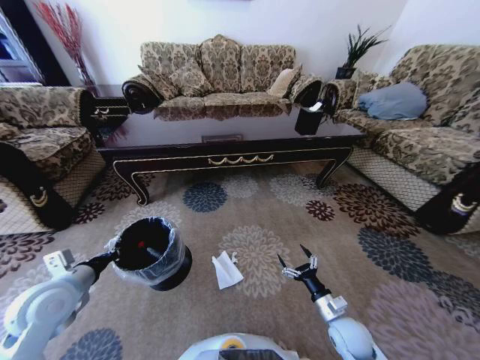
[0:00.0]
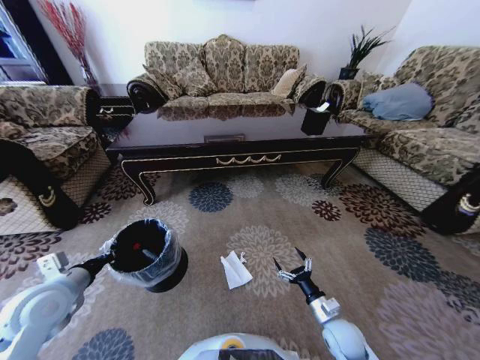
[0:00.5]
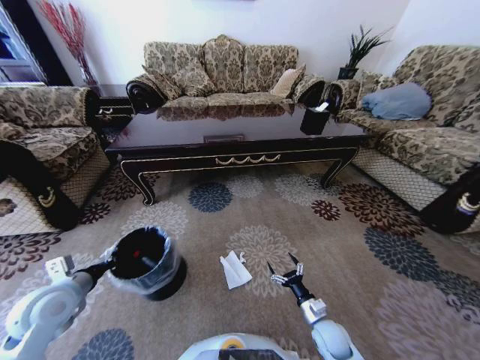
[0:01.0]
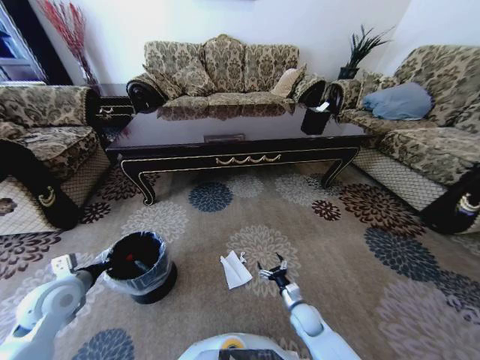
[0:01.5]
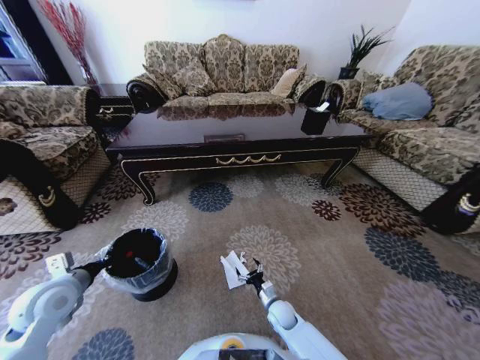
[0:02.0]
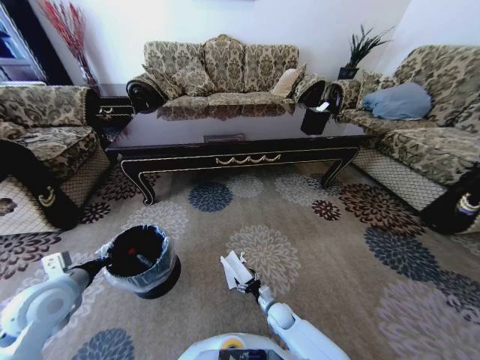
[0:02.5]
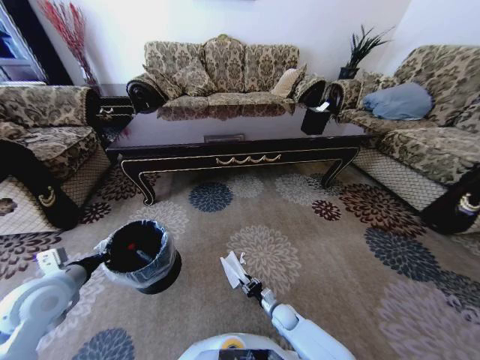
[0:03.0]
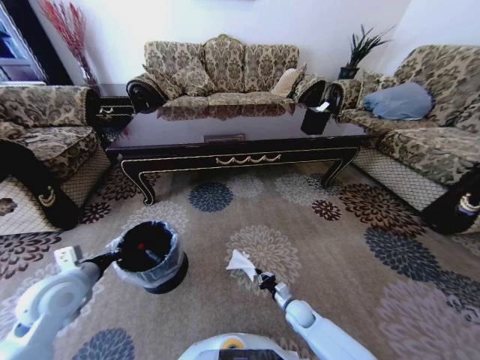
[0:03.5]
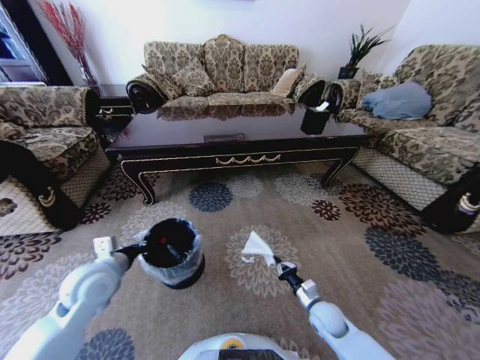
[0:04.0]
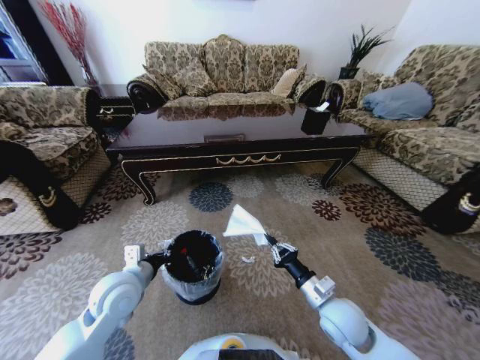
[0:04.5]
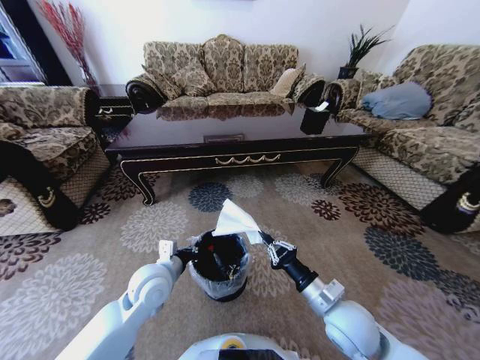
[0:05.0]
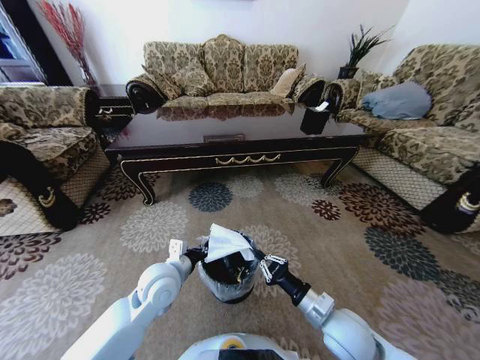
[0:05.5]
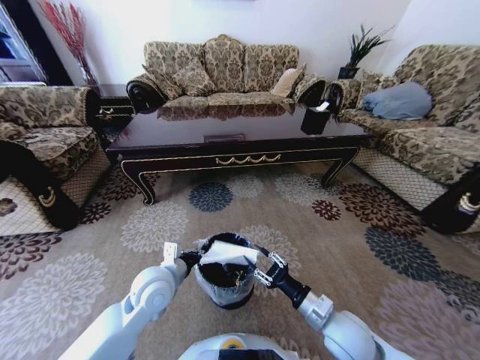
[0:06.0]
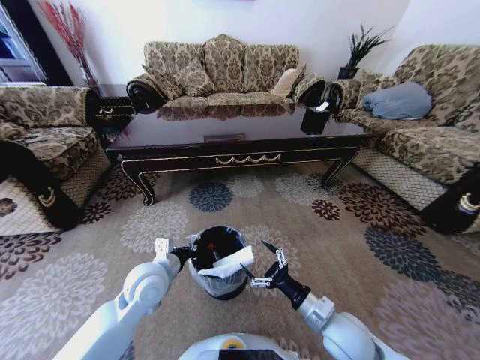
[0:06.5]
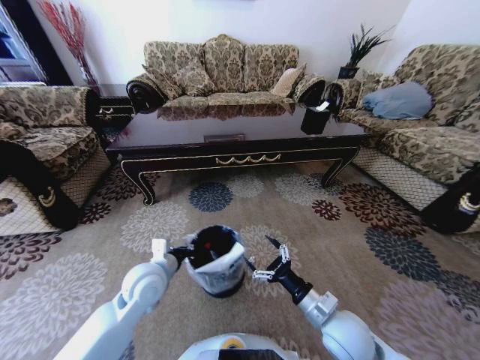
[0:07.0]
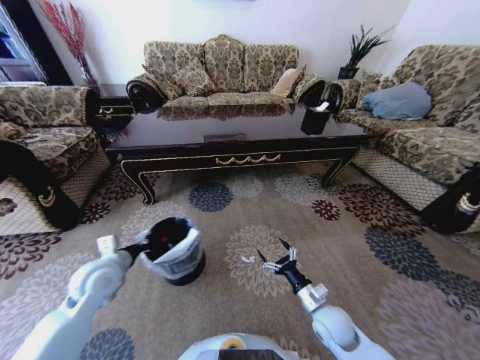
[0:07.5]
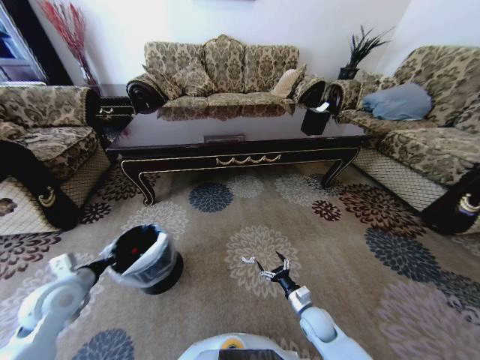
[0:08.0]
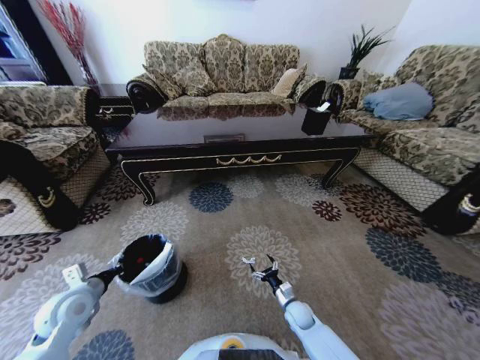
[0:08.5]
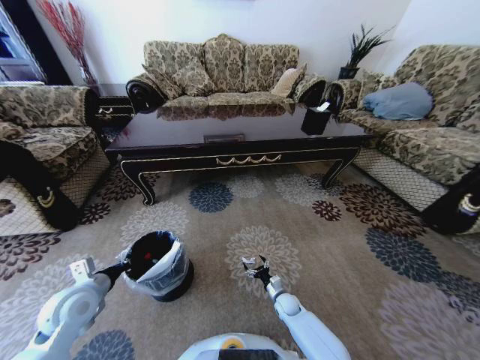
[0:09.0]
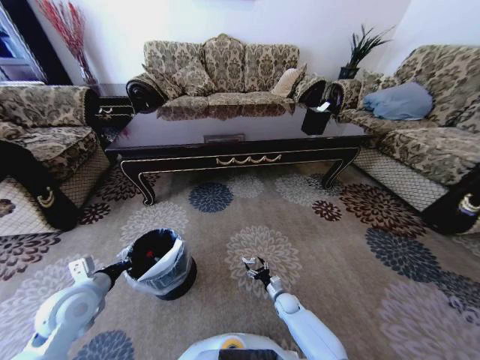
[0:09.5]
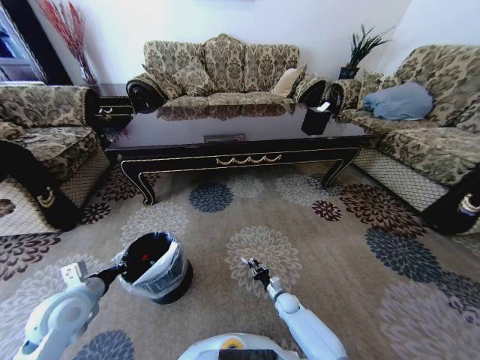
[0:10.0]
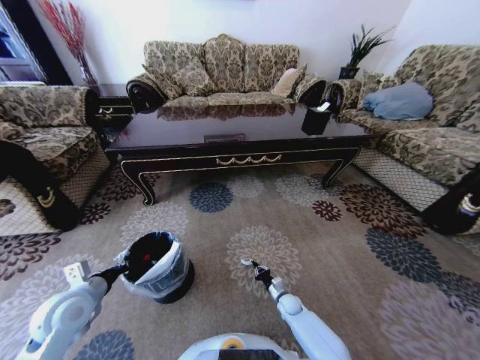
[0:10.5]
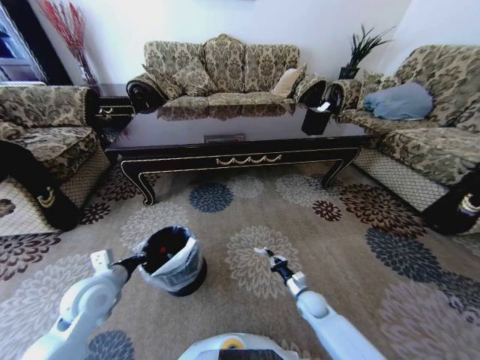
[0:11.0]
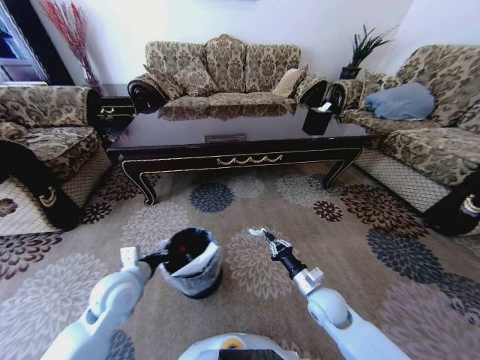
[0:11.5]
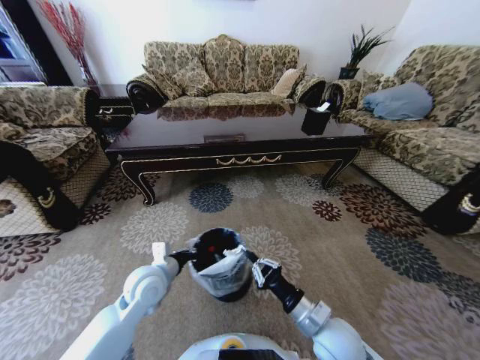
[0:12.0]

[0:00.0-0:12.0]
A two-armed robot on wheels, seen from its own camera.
Task of the whole recording: Move to the front of the table and pick up the trash from the floor, then place it into the trash bin.
0:00.0 to 0:02.0: The right gripper travels to the left, downward and forward by roughly 20 cm.
0:02.0 to 0:04.0: The right gripper moves to the right and upward, roughly 15 cm, and closes up; the left gripper is displaced to the right by some 10 cm.
0:04.0 to 0:06.0: The left gripper goes approximately 15 cm to the right; the right gripper goes approximately 15 cm upward and backward, and opens up.
0:06.0 to 0:08.0: The left gripper travels to the left by approximately 20 cm. Meanwhile the right gripper moves downward, about 20 cm, and opens.
0:08.0 to 0:10.0: The right gripper heads downward and forward, covering approximately 15 cm, and closes its fingers.
0:10.0 to 0:12.0: The right gripper travels upward and backward by roughly 35 cm, and closes up. The left gripper goes roughly 15 cm to the right.

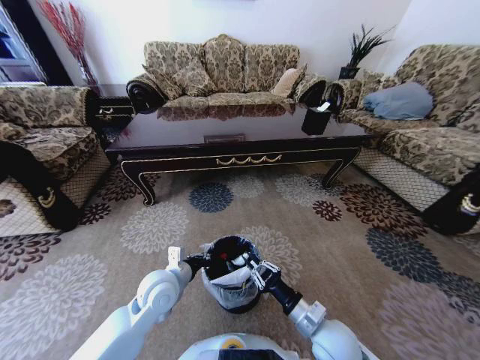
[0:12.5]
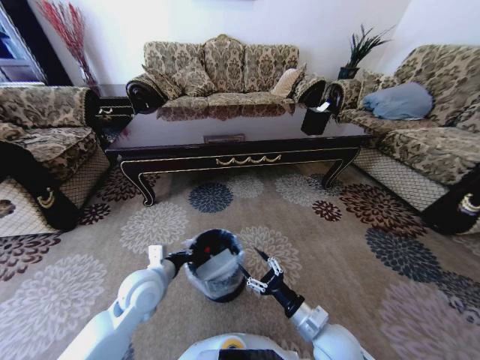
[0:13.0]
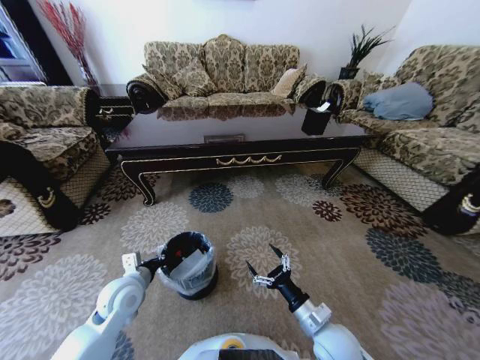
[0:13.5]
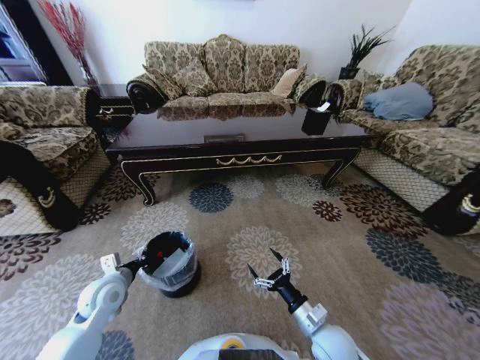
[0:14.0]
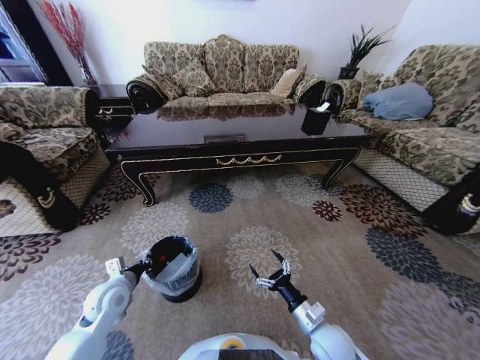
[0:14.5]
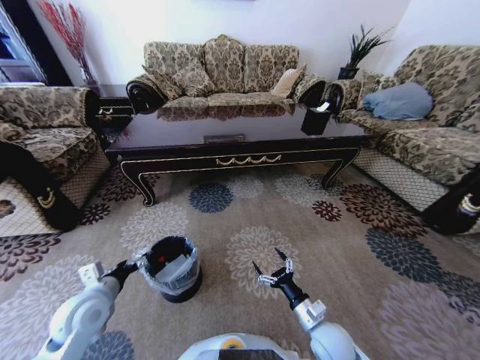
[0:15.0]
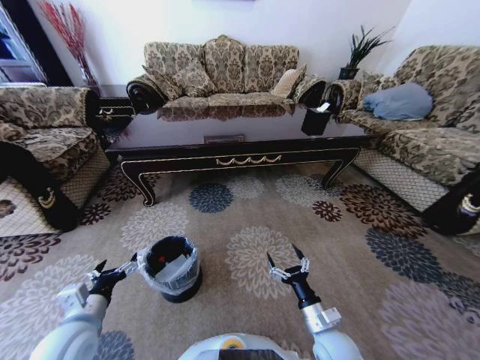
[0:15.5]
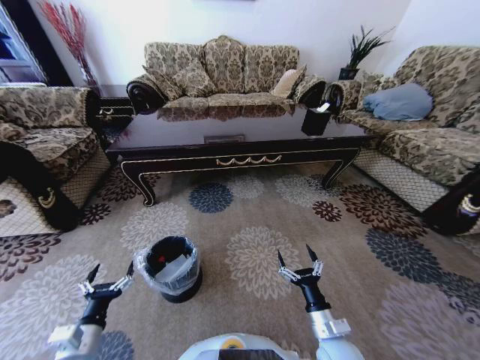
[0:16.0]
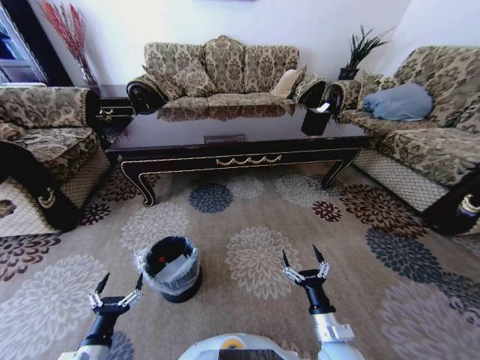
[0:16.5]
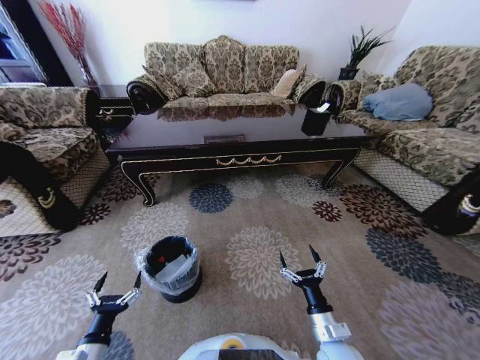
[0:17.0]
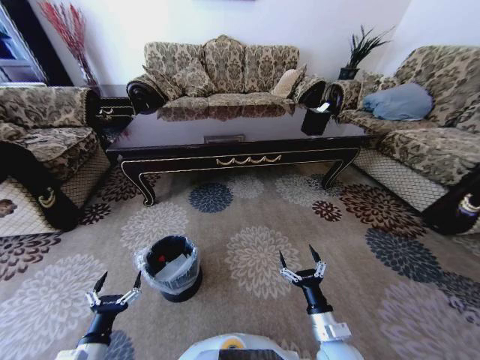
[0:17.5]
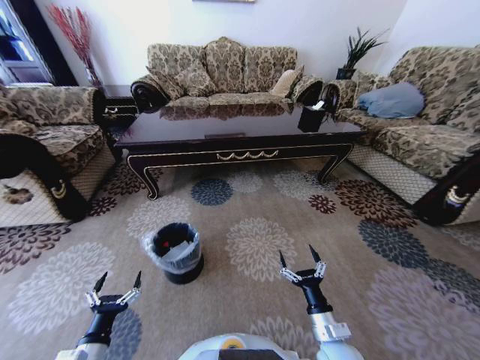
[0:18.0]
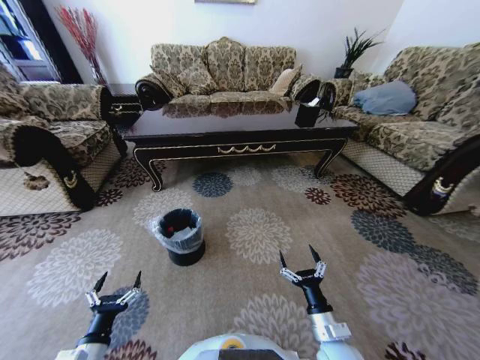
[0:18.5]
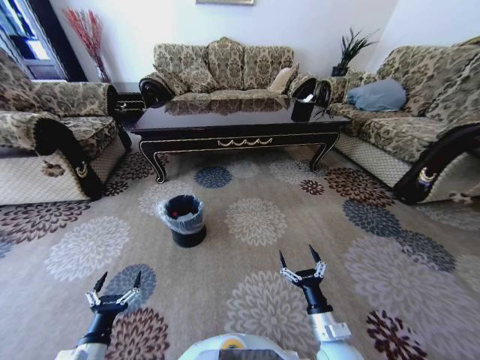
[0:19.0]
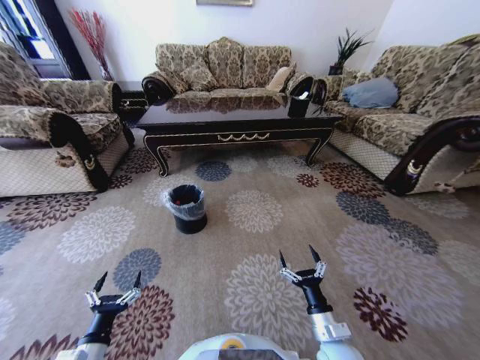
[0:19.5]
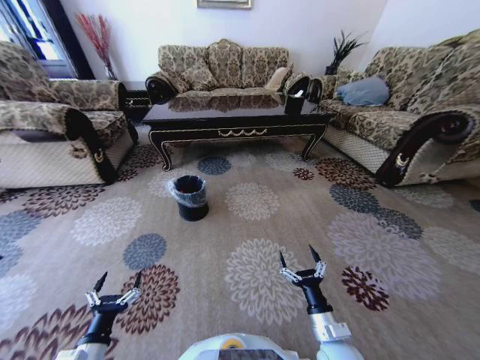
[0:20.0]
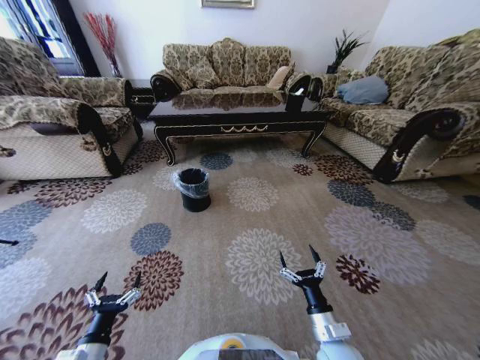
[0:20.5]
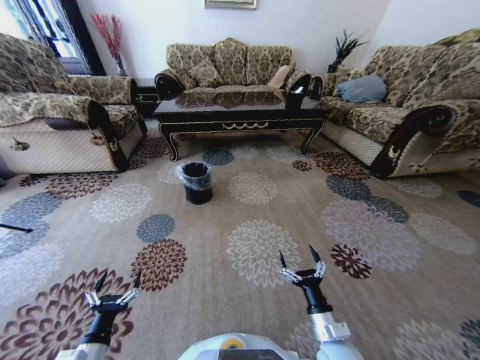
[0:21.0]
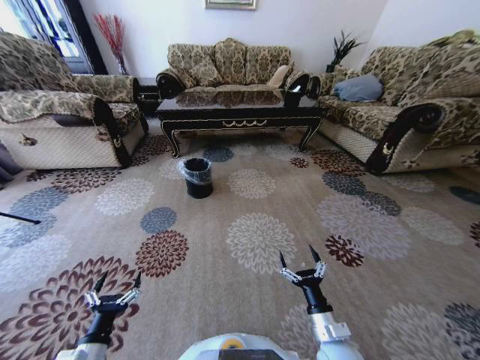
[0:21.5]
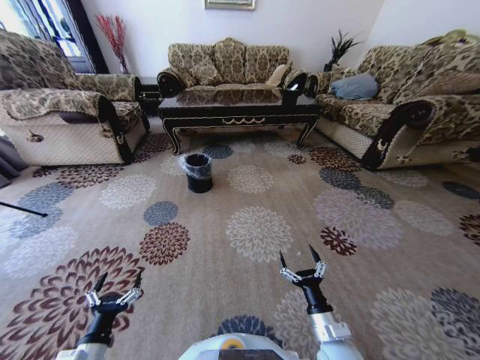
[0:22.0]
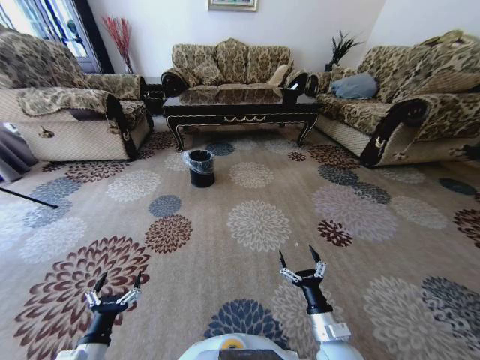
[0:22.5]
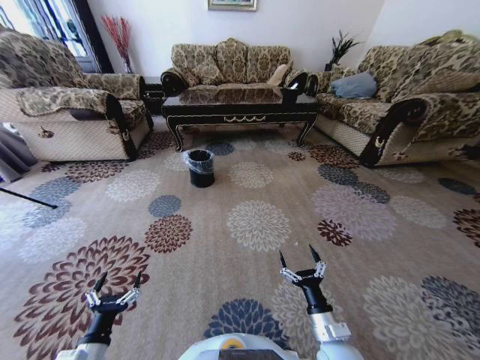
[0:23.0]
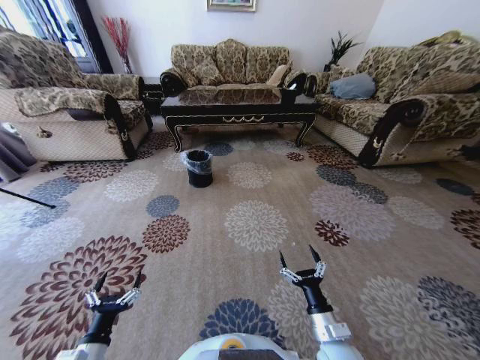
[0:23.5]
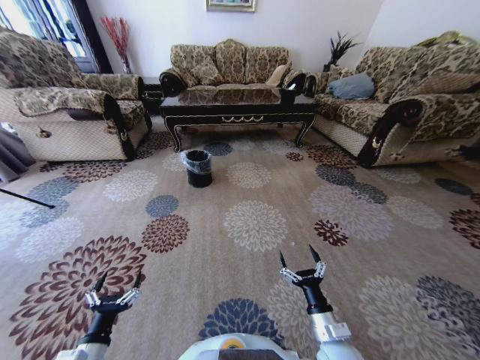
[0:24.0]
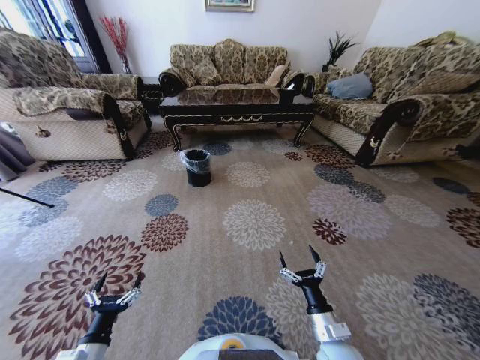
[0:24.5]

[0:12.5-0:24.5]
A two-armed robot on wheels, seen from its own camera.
Task of the whole recording: Move to the front of the table and pick up the trash from the floor, then place it into the trash bin.
0:12.5 to 0:14.5: The left gripper shifts roughly 15 cm to the left; the right gripper travels downward by about 5 cm, and opens its fingers.
0:14.5 to 0:16.5: The left gripper travels backward by roughly 20 cm, and opens.
0:22.5 to 0:24.5: Both grippers stay put.

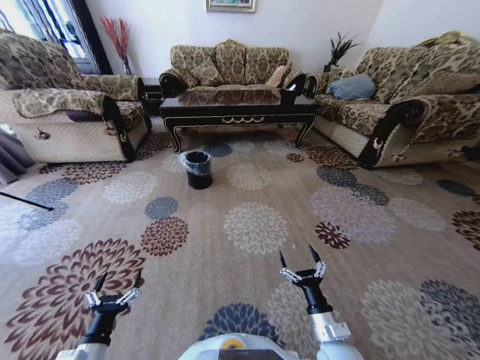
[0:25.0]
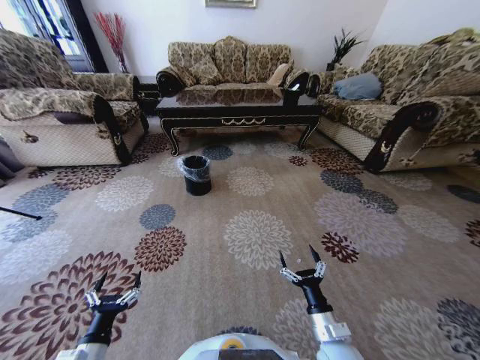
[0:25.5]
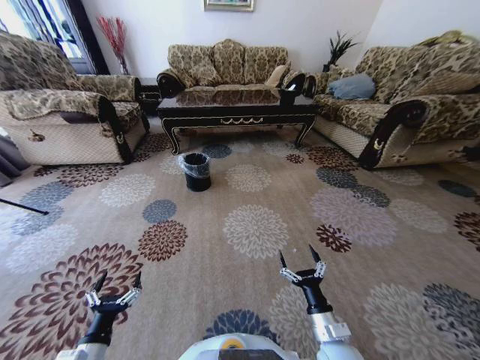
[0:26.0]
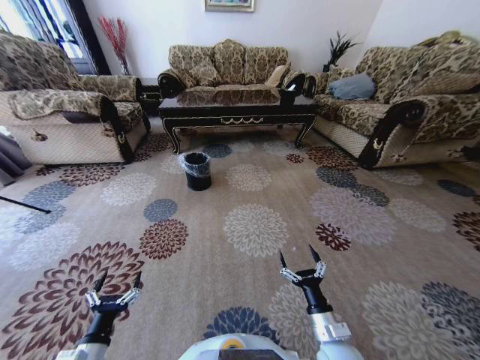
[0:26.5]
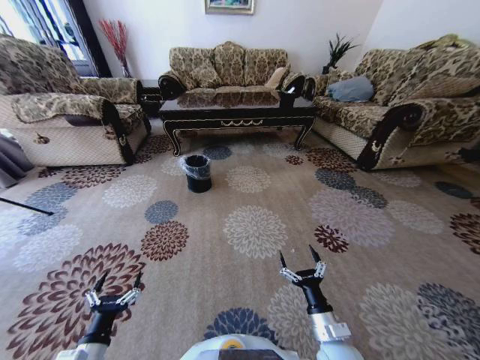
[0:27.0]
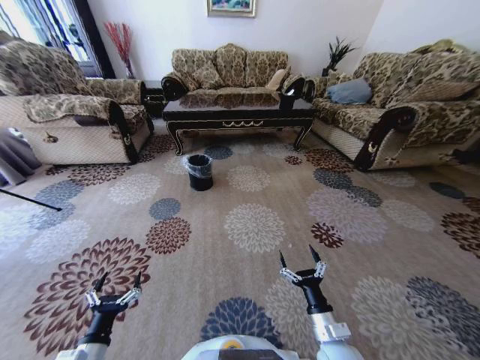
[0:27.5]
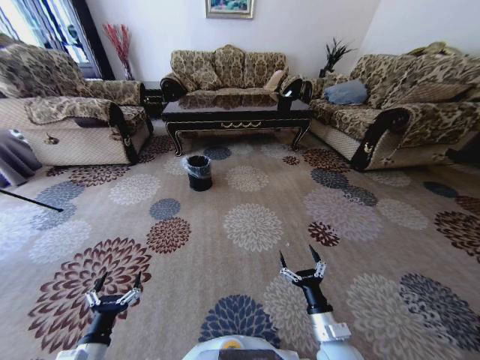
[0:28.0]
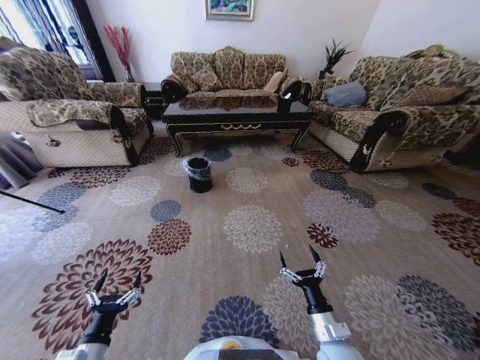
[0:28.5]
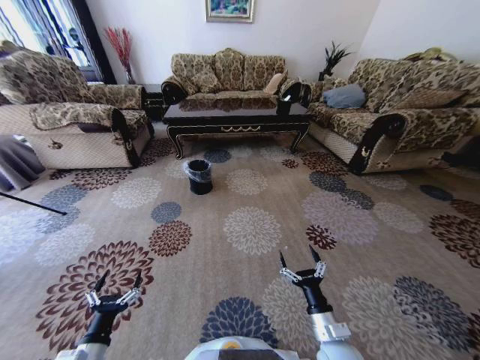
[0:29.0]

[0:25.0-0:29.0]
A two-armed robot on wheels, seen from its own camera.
Task of the whole recording: Move to the front of the table and pick up the trash from the floor, then place it into the trash bin.
0:25.0 to 0:27.0: Neither gripper changes place.
